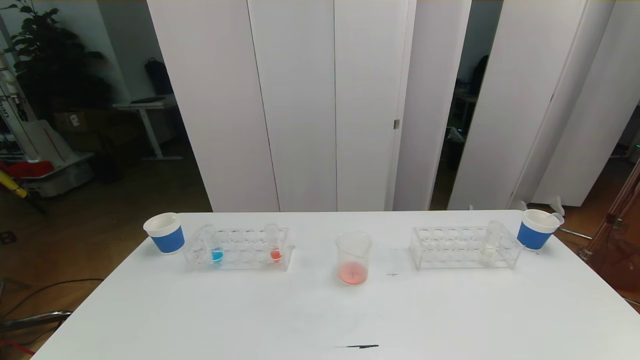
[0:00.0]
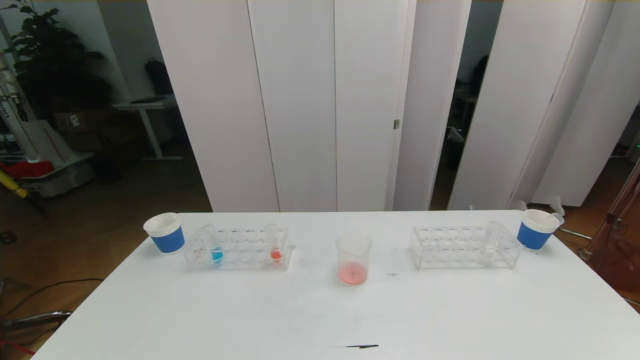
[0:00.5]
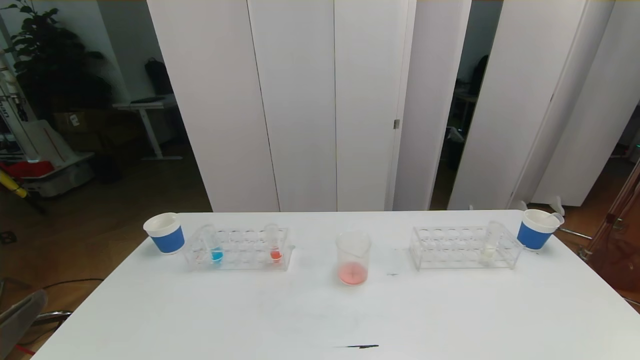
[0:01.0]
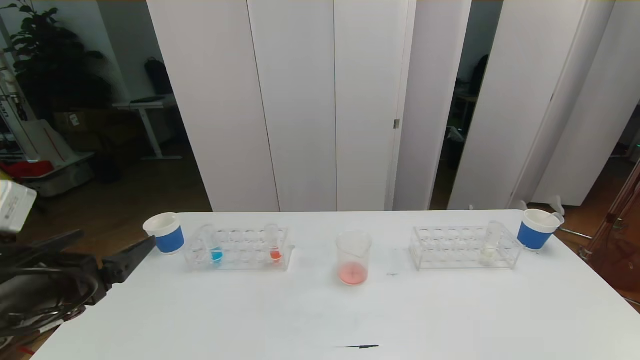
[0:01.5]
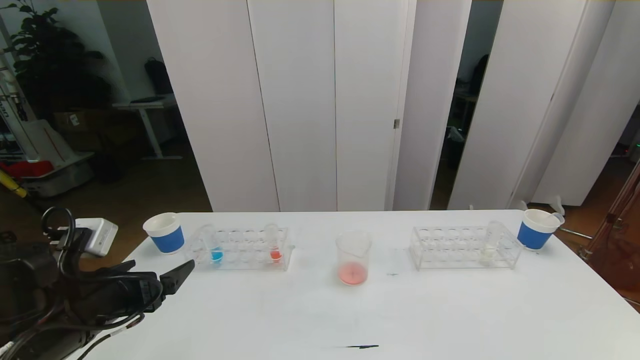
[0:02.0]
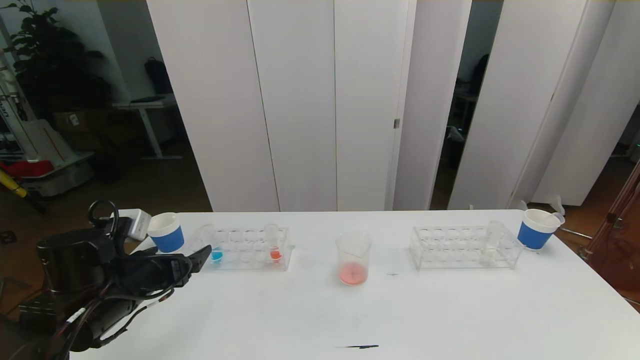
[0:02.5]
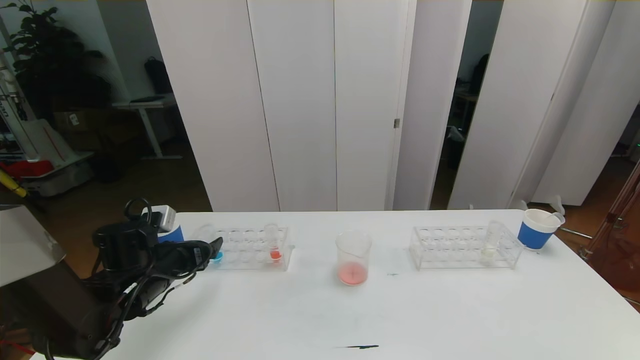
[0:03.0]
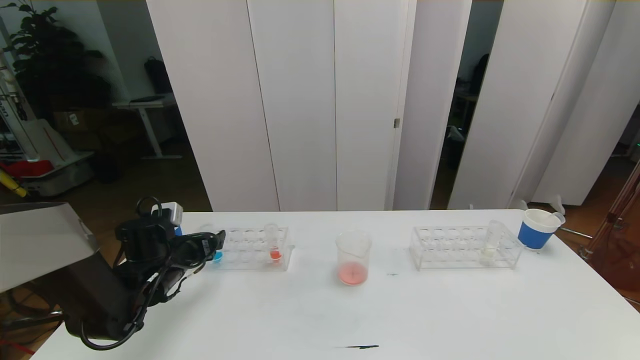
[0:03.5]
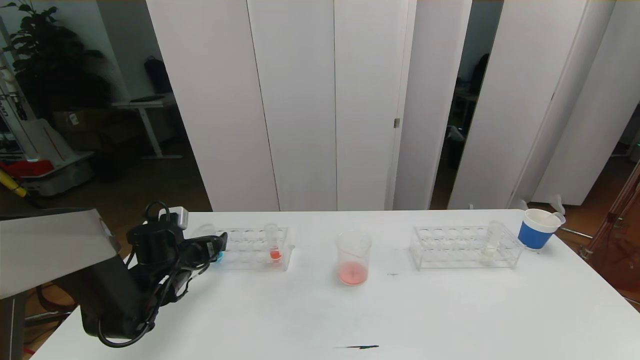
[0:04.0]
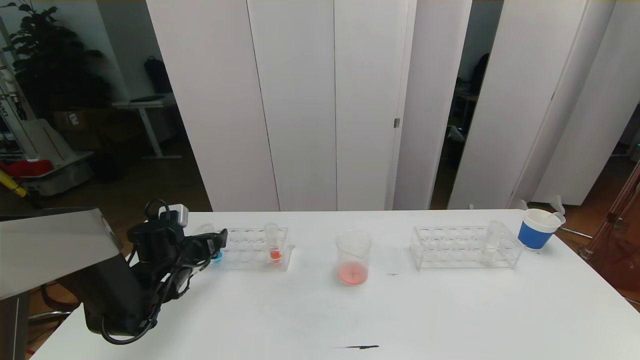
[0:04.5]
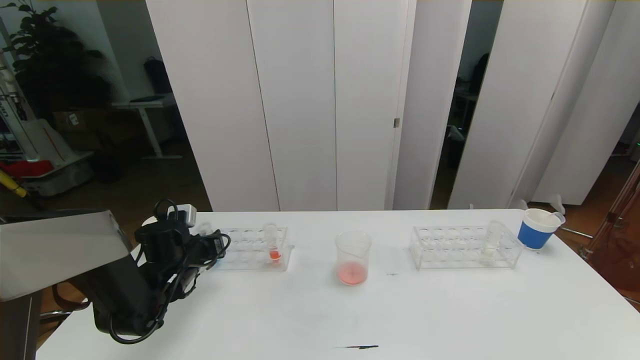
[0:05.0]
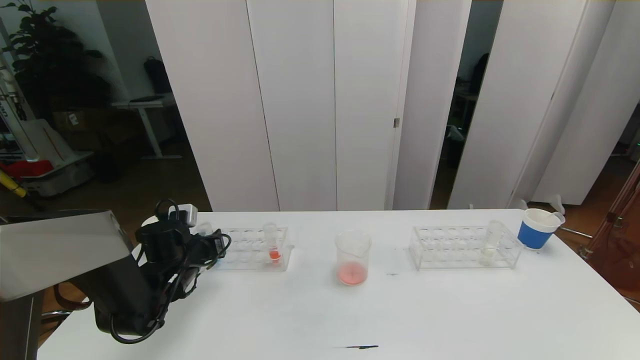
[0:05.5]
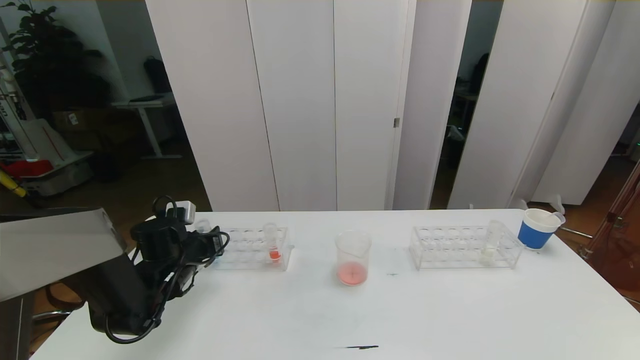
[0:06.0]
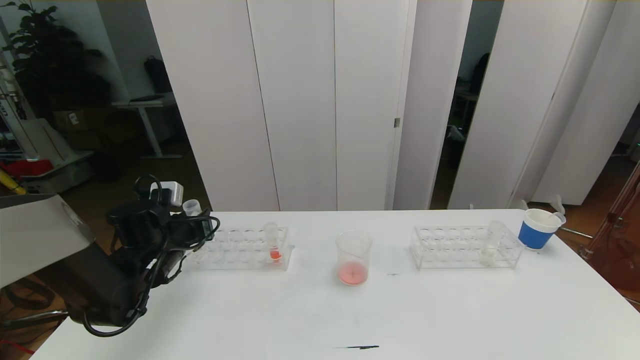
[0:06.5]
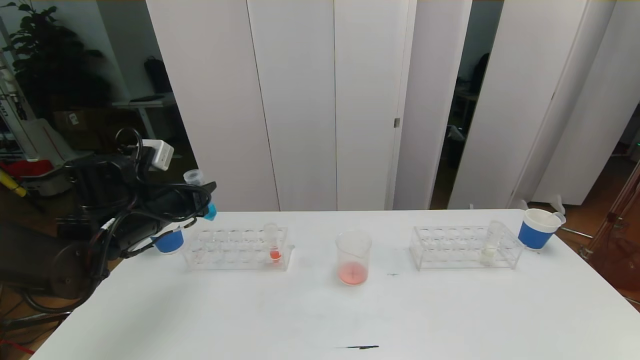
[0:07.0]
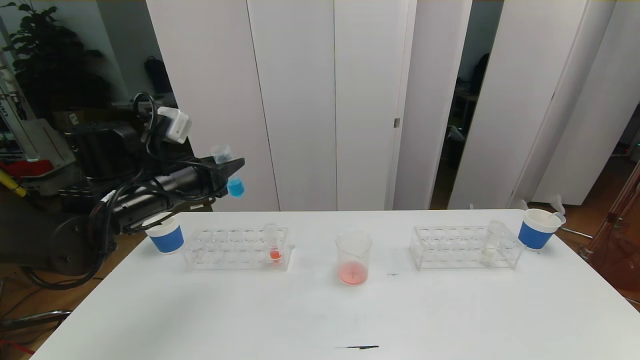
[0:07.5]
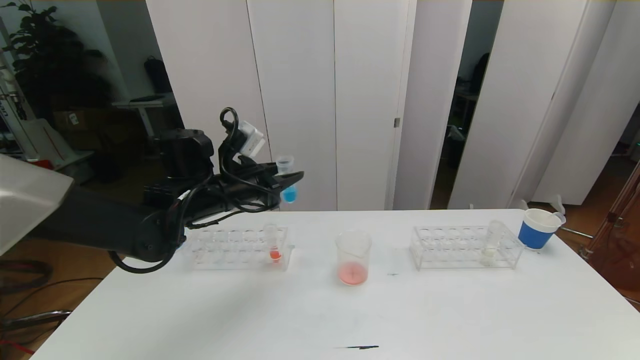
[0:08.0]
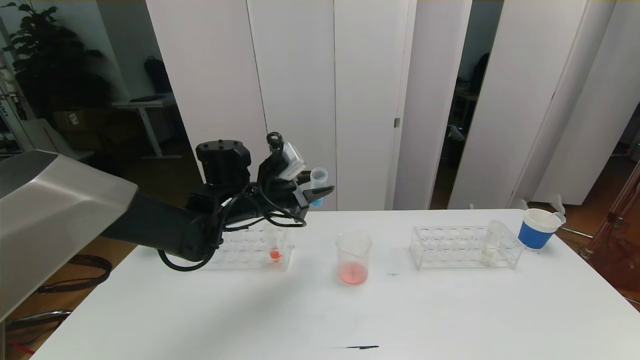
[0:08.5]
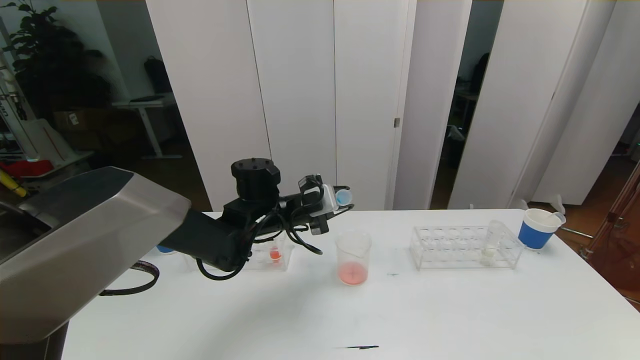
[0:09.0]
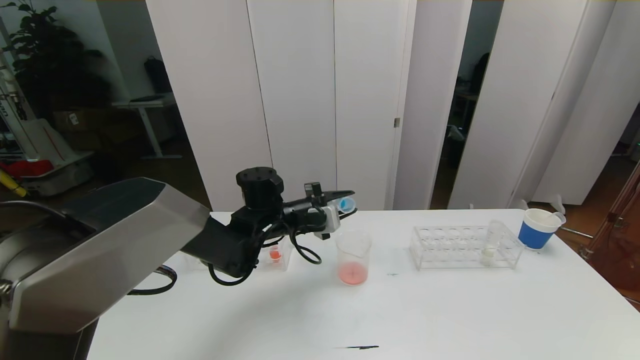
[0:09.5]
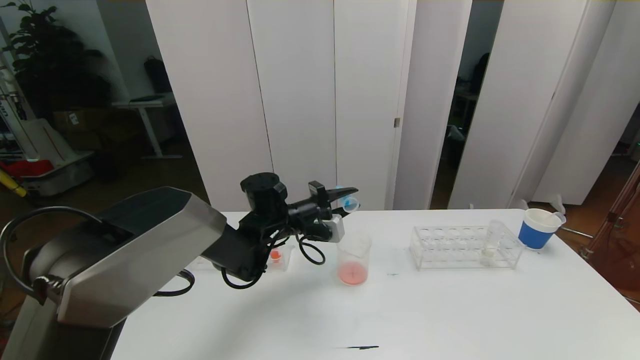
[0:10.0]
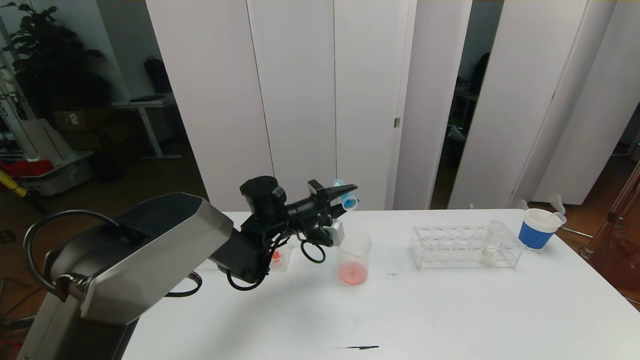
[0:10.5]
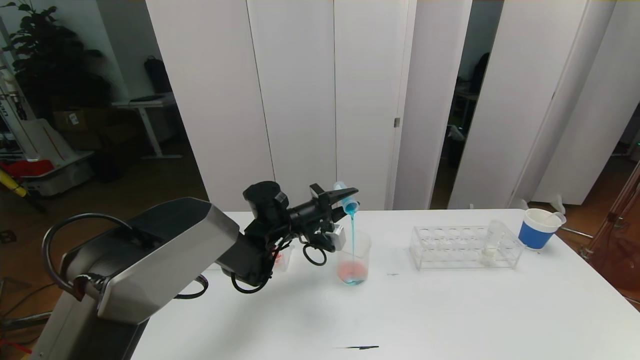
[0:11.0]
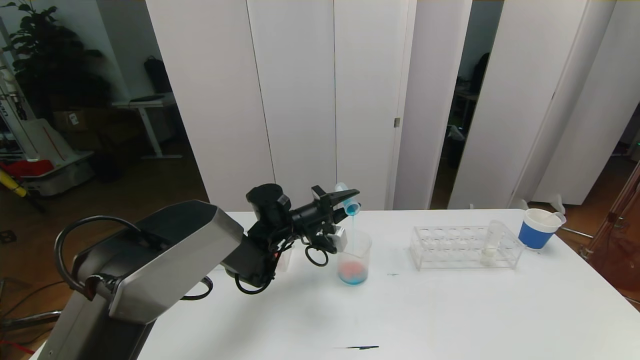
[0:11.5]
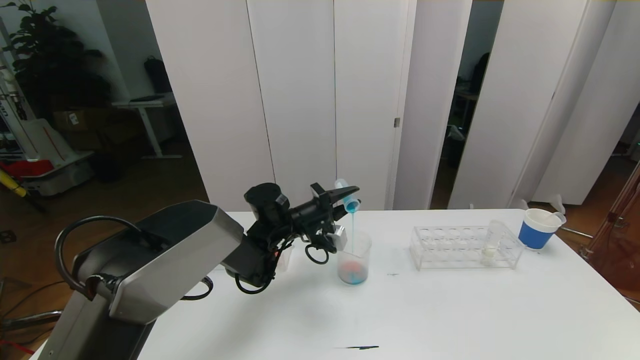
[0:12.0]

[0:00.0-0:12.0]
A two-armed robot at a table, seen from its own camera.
Task of the whole recording: pick up the test tube with red pigment the test tube with blue pigment and the test tube with white pigment by grippers and pour them into the beaker.
0:00.0 to 0:02.0: The left gripper heads forward, covering some 20 cm.
0:02.0 to 0:04.0: The left gripper moves forward and downward, about 20 cm.
0:04.0 to 0:06.0: The left gripper closes up.
0:06.0 to 0:08.0: The left gripper shifts some 20 cm upward and to the right.
0:08.0 to 0:10.0: The left gripper goes about 10 cm downward and to the right.
0:10.0 to 0:12.0: The grippers stay close to where they were, moving slightly.

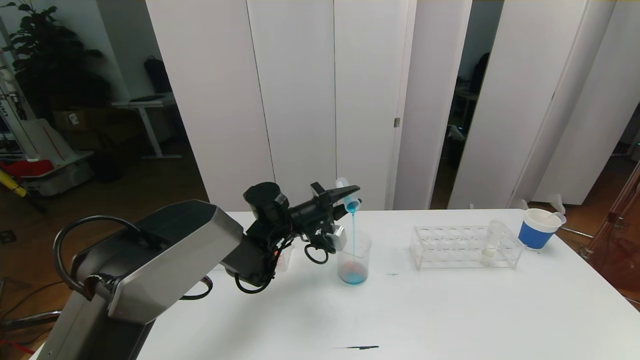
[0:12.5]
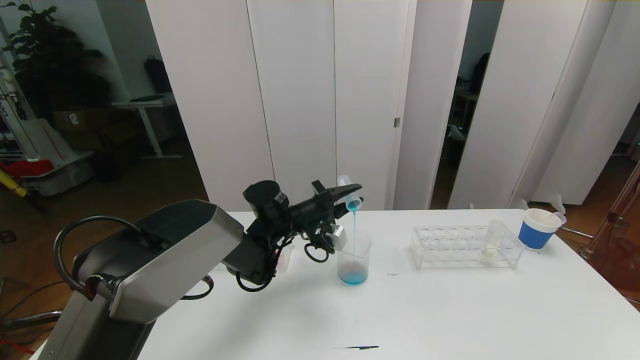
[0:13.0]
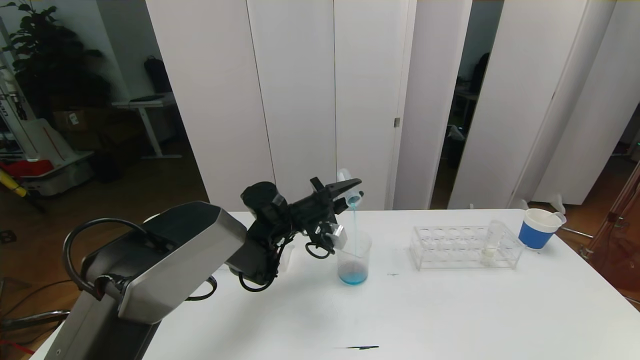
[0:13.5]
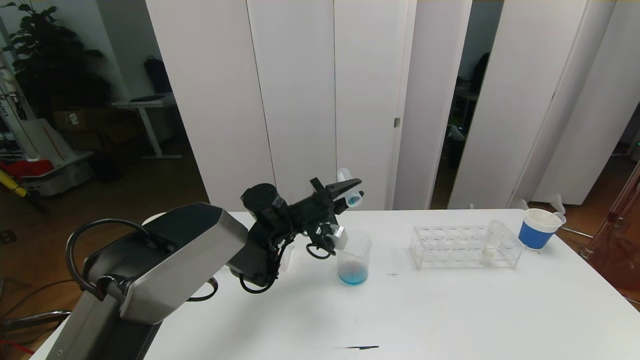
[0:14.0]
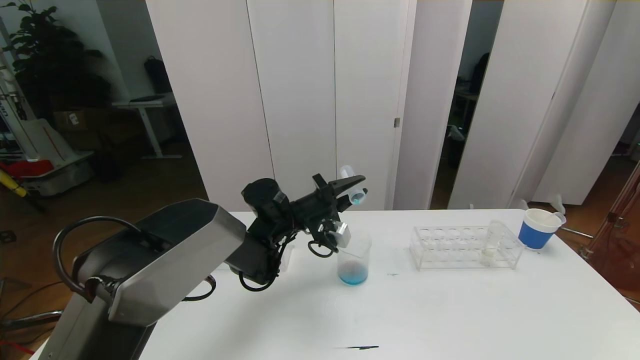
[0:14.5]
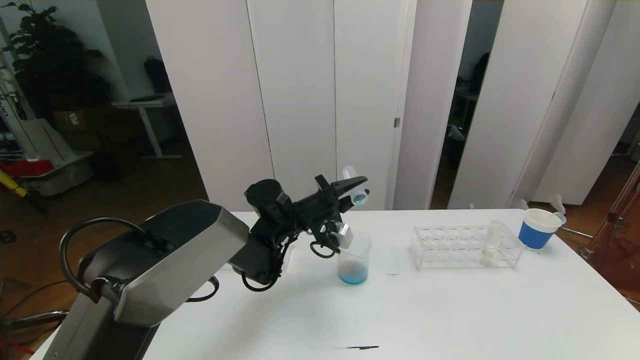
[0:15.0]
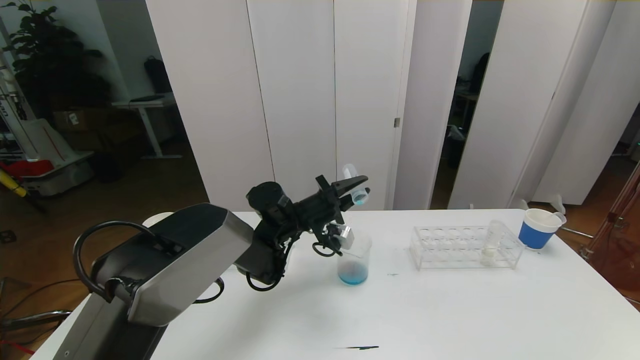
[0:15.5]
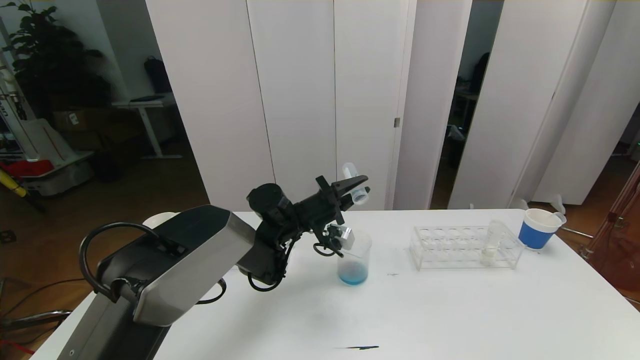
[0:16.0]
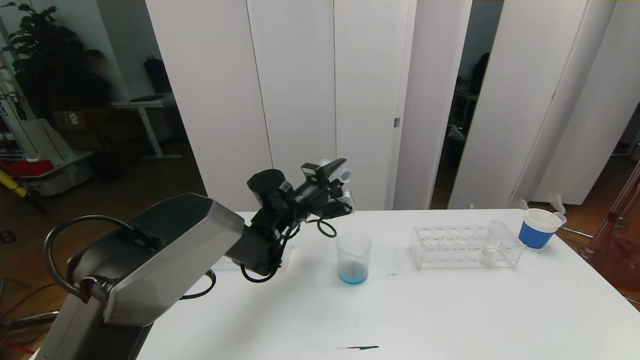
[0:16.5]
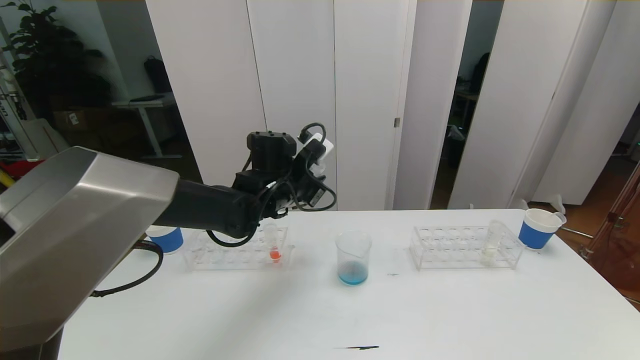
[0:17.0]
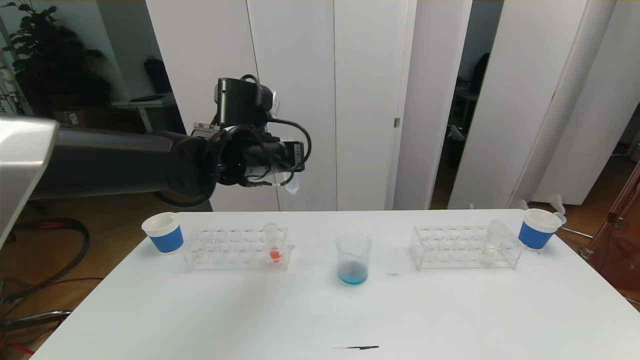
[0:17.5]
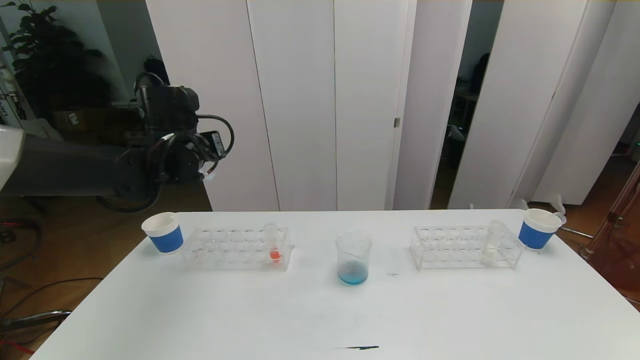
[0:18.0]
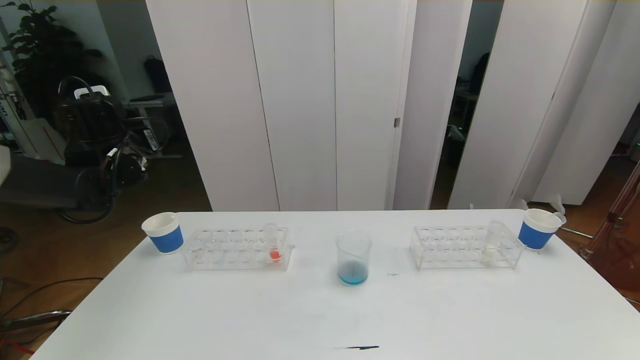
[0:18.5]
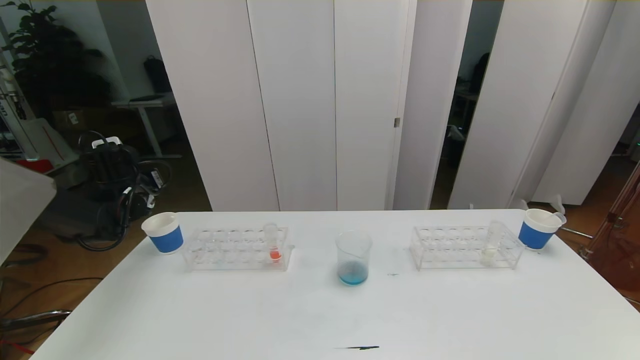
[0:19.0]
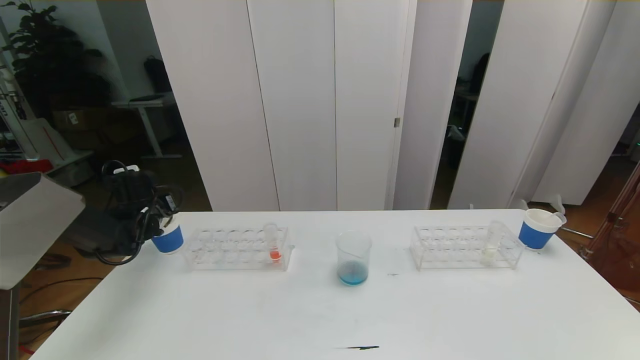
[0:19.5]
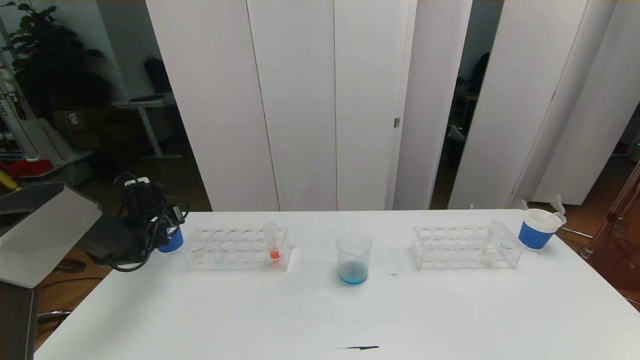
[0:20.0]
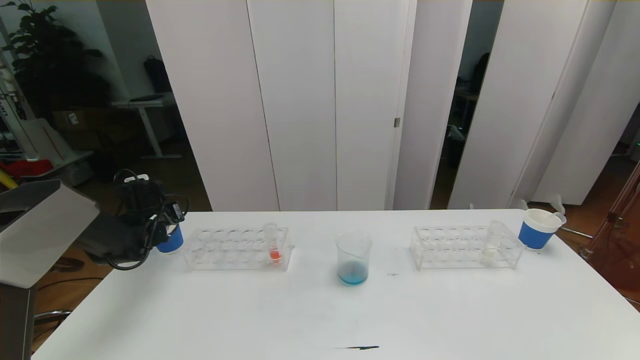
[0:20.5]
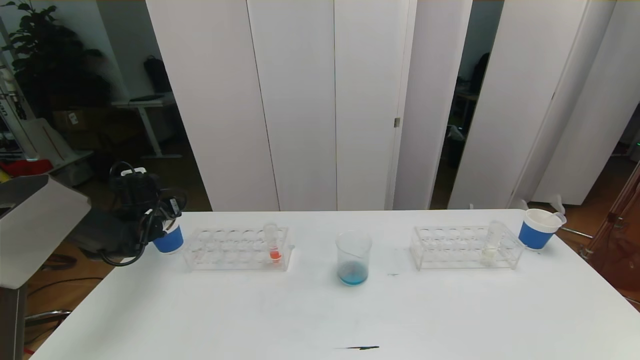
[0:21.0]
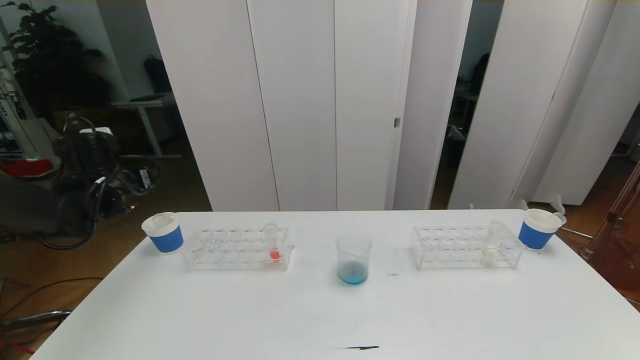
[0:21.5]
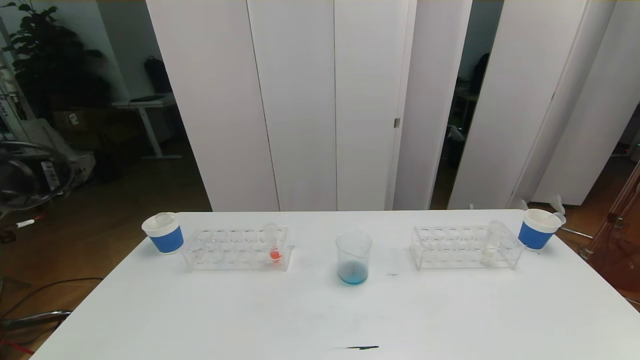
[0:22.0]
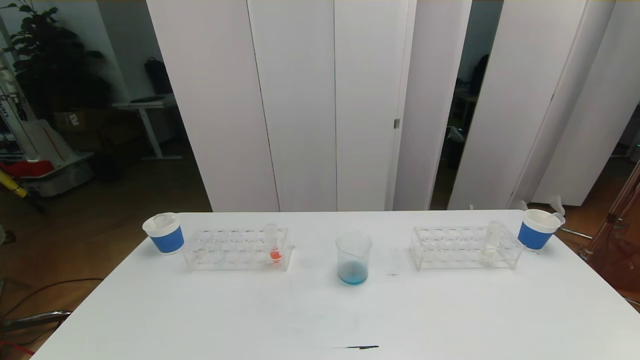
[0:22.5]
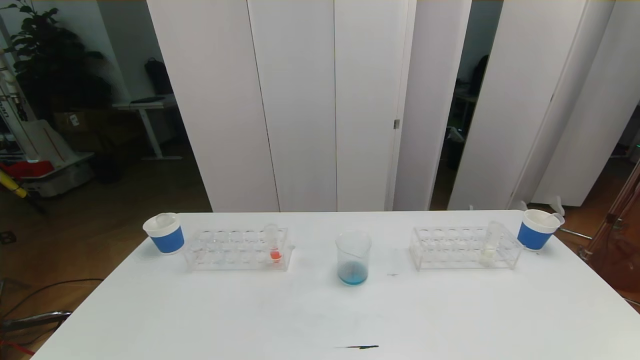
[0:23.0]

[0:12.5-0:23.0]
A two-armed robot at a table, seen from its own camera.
Task of the whole recording: pick up the test tube with red pigment the test tube with blue pigment and the test tube with white pigment by grippers and pour them into the beaker.
0:12.5 to 0:14.5: The grippers make only small movements.
0:16.5 to 0:19.0: The left gripper moves to the left, about 30 cm.
0:19.0 to 0:21.0: The left gripper travels downward by approximately 5 cm, and opens up.
0:21.0 to 0:23.0: The left gripper shifts approximately 50 cm backward.
